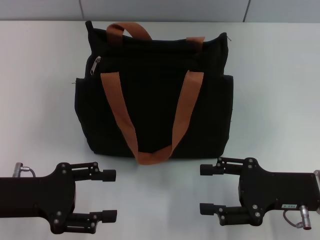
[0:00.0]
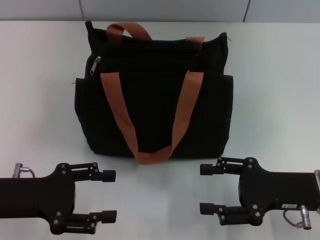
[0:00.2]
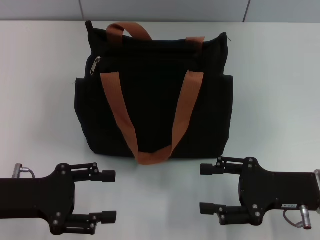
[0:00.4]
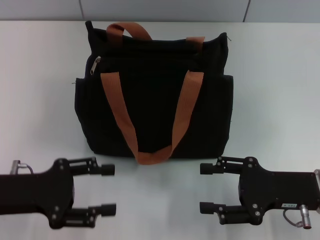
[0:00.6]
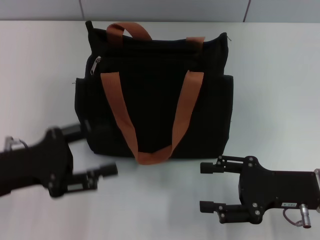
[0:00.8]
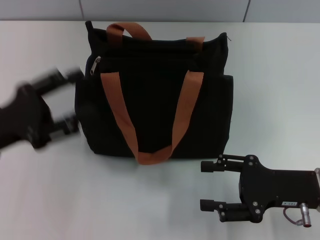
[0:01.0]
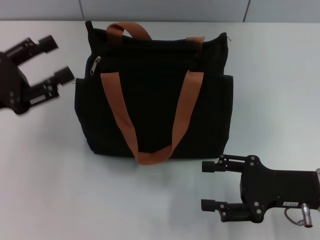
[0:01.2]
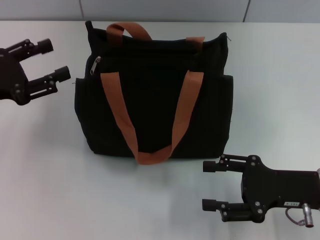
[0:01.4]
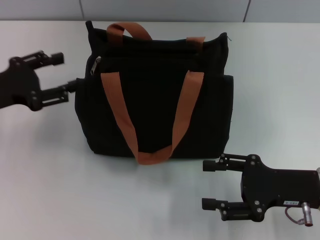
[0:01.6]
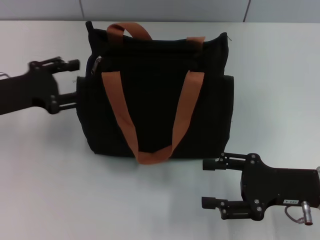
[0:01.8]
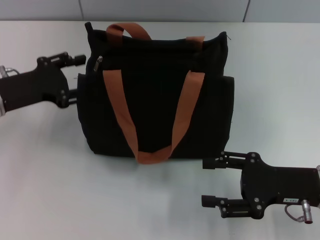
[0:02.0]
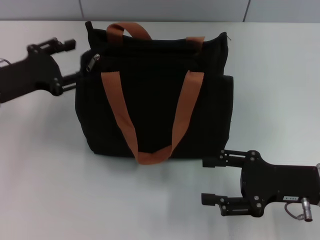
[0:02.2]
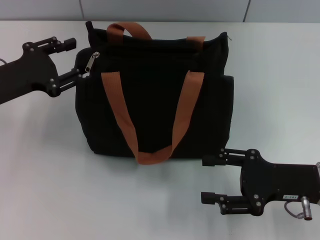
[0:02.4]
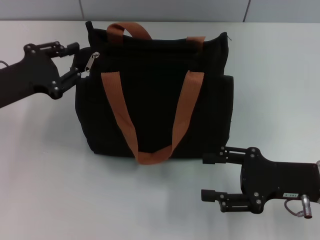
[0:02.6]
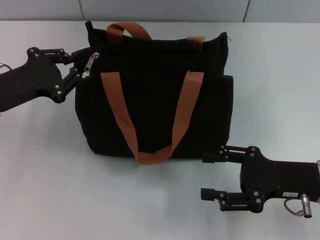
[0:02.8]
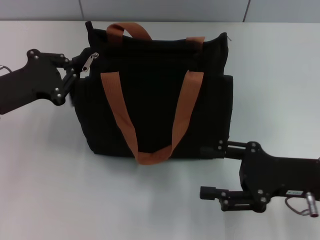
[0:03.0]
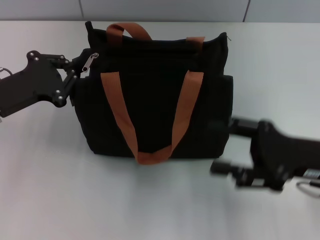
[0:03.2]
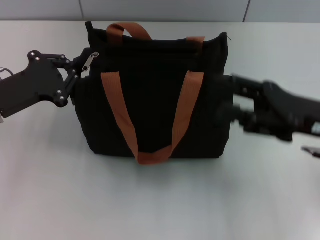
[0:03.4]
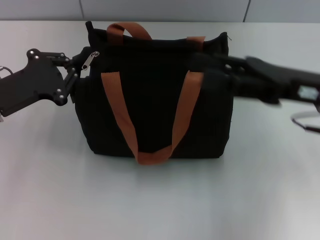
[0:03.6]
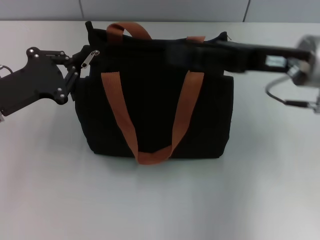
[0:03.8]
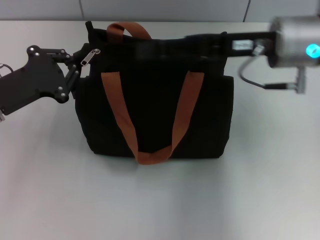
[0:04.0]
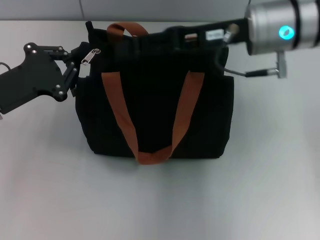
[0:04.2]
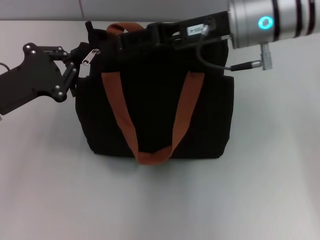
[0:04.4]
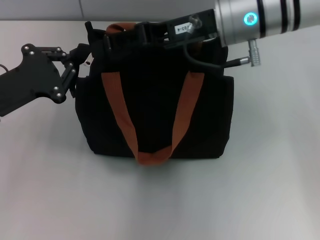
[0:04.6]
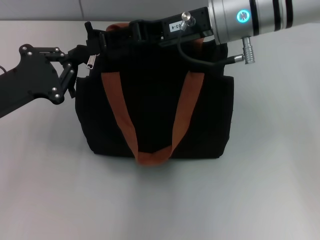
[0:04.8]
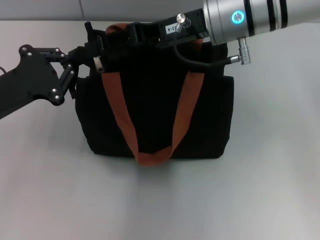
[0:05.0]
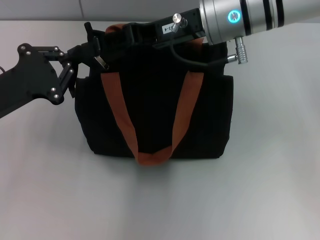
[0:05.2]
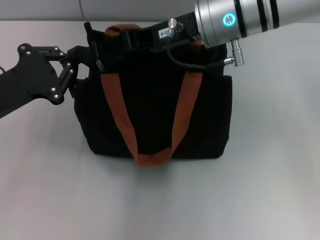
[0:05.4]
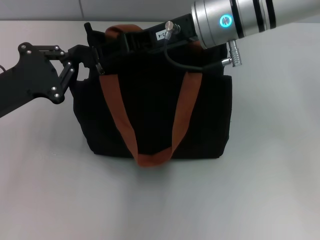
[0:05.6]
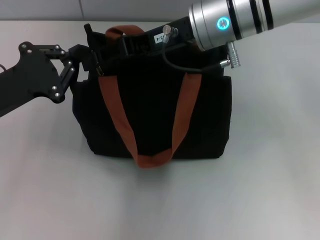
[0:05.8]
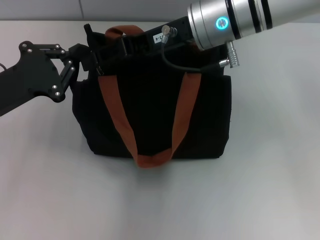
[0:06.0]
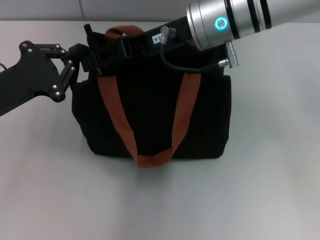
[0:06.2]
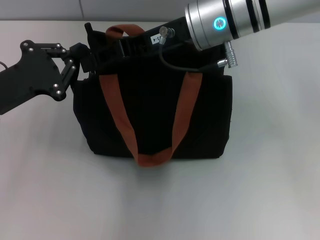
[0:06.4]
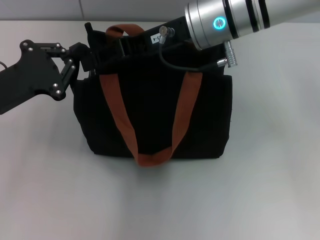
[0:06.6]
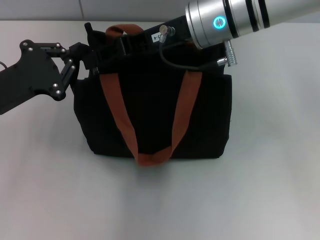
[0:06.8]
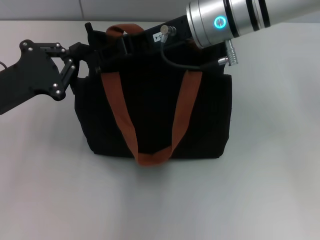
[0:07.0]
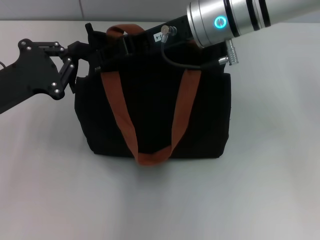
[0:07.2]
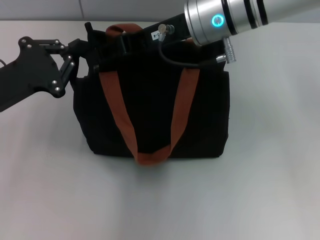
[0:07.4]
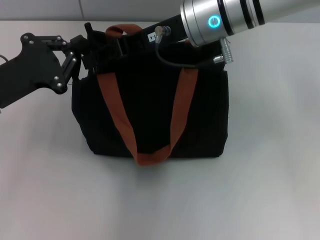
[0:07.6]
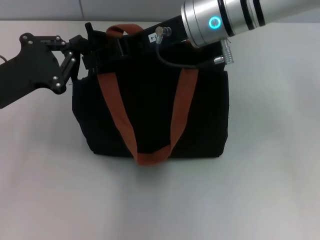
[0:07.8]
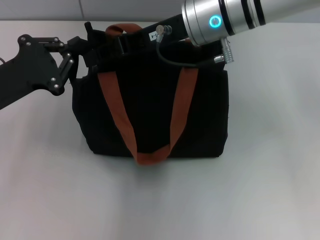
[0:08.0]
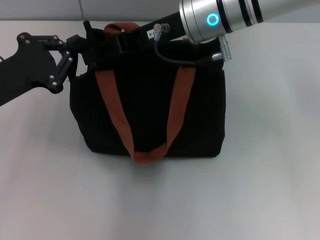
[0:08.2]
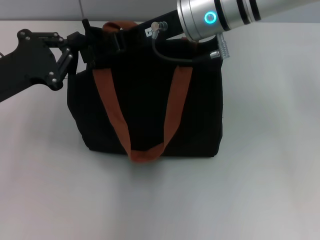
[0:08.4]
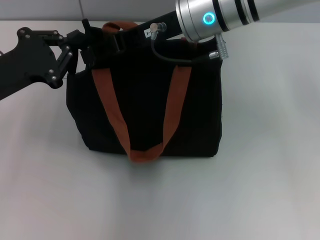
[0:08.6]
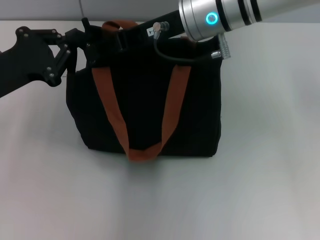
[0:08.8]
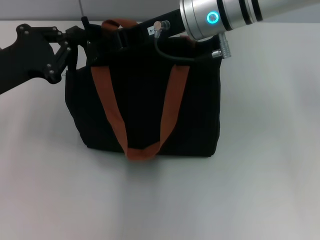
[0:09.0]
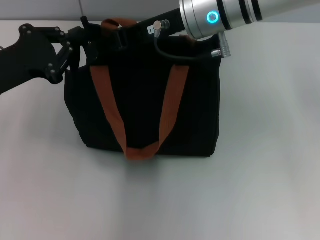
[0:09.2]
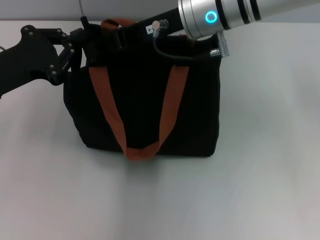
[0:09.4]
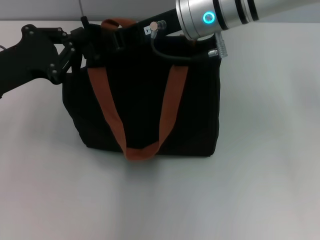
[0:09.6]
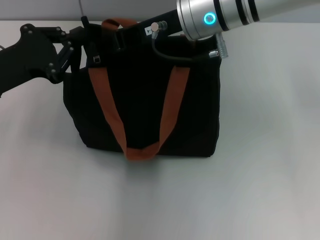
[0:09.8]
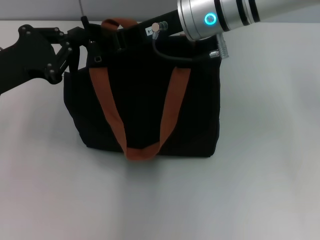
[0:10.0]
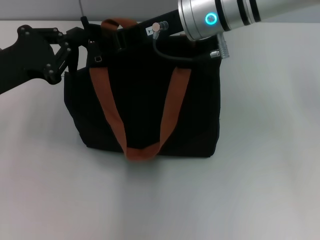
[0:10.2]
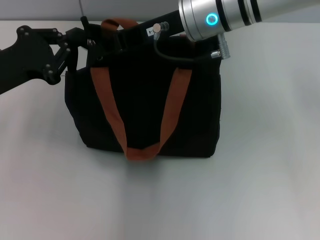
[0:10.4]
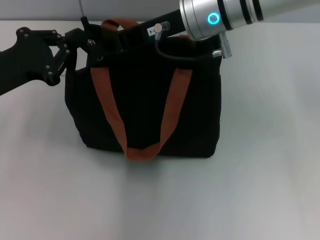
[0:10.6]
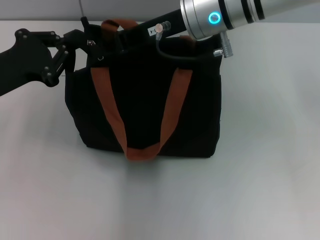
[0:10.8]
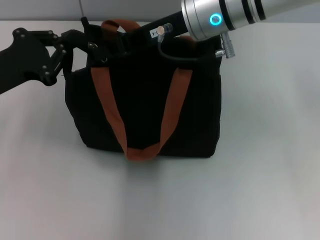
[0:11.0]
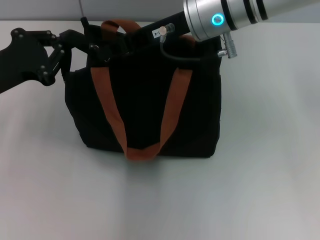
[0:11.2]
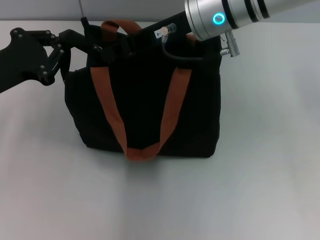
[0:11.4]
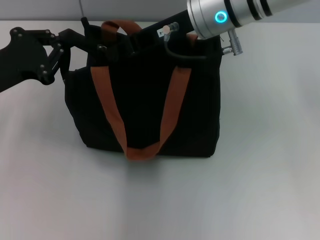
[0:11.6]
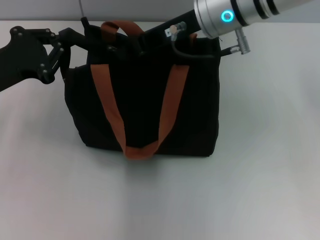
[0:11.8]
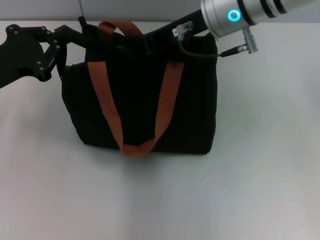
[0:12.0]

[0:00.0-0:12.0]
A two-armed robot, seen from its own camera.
0:00.0 to 0:01.6: The left gripper travels forward by roughly 10 cm.
0:01.6 to 0:03.0: The left gripper closes its fingers.
0:03.0 to 0:04.4: The right gripper moves forward, upward and to the left, some 25 cm.
0:04.4 to 0:09.0: The grippers stay close to where they were, moving slightly.
0:09.0 to 0:10.4: Both grippers stay put.
0:10.4 to 0:12.0: There are only small adjustments of the grippers.

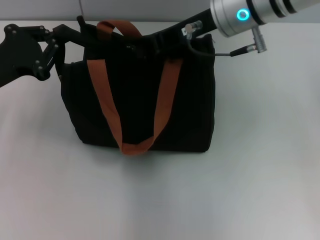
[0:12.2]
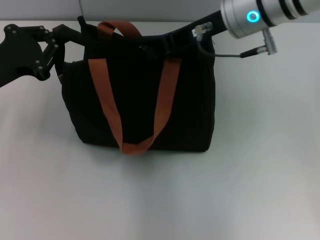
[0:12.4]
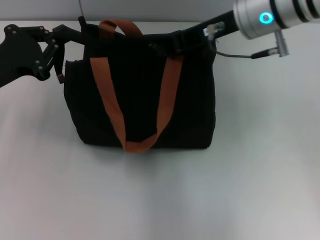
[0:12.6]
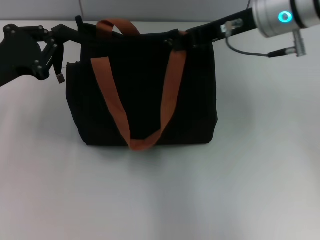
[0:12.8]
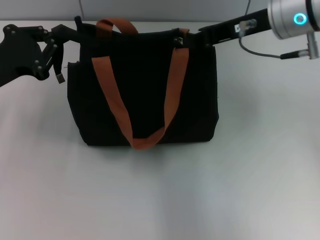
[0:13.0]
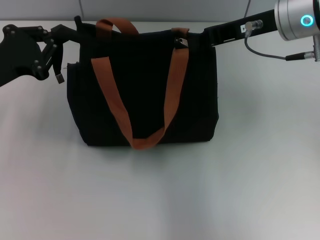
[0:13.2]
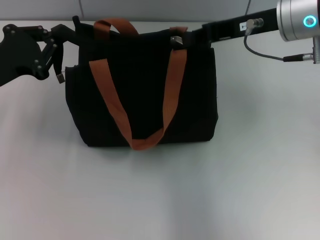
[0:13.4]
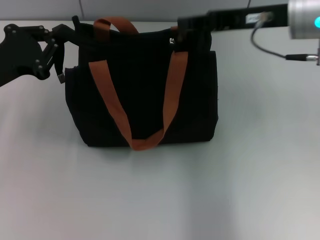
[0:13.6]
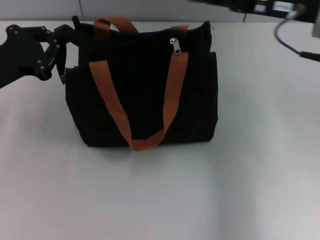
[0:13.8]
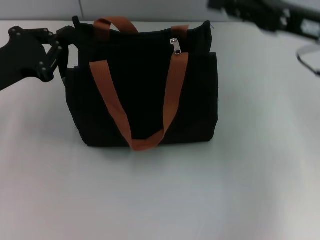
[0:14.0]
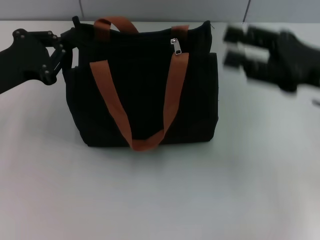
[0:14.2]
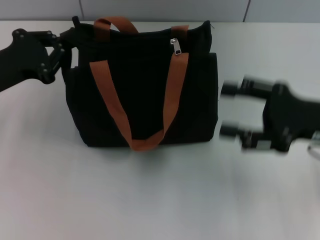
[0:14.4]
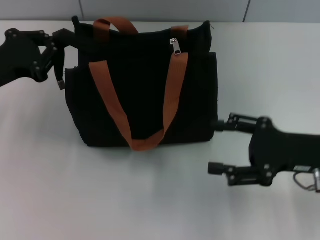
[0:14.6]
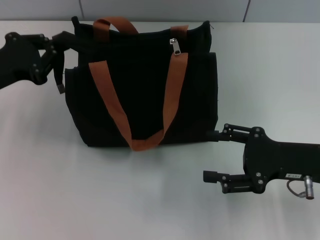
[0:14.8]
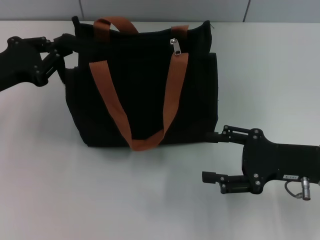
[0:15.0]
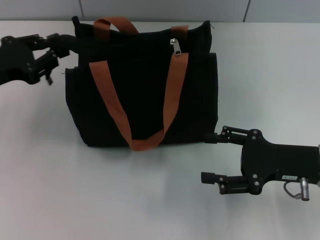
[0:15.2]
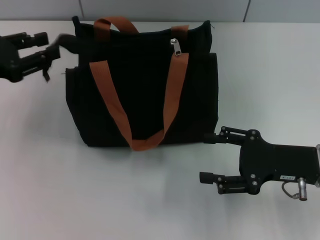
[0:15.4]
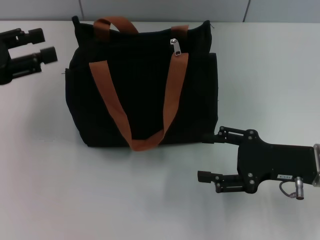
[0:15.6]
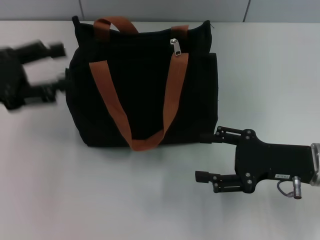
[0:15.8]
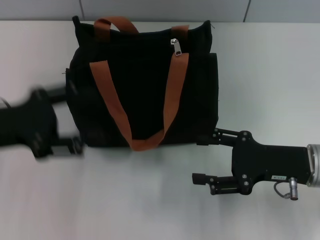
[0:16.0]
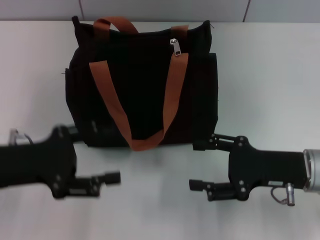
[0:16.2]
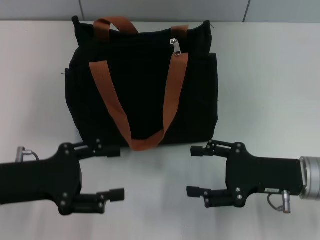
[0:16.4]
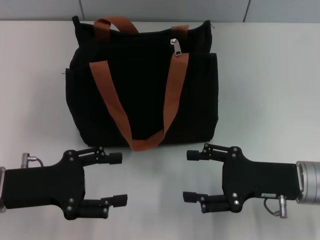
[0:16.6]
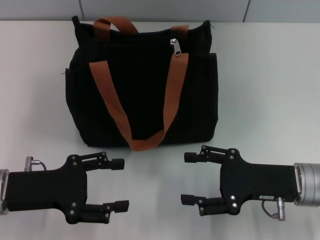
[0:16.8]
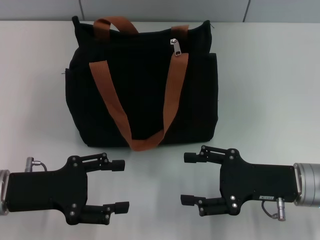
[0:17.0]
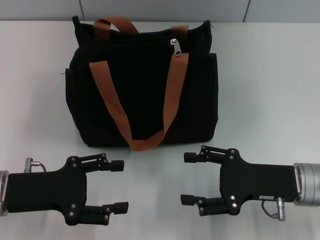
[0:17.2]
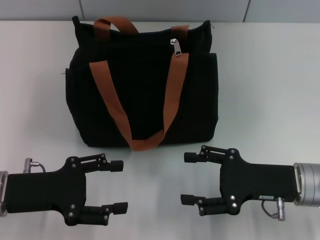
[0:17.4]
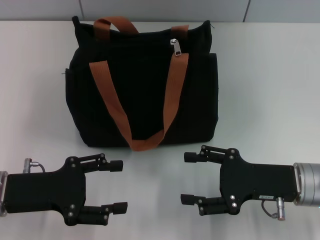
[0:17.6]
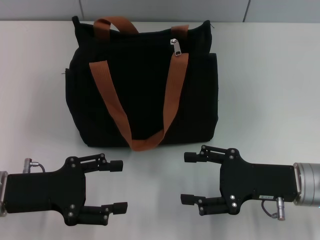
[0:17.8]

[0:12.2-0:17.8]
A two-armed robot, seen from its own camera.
Step, 0:13.6 to 0:15.4: Grab the zipper with your left hand.
0:12.2 to 0:13.6: The right gripper goes roughly 10 cm to the right.
0:13.6 to 0:15.0: The right gripper heads downward and backward, covering about 20 cm, and opens up.
0:15.0 to 0:16.4: The left gripper is displaced backward by some 10 cm, and opens up.
0:16.4 to 0:17.8: The grippers move only a little.

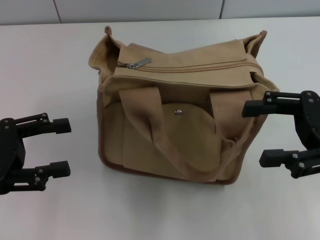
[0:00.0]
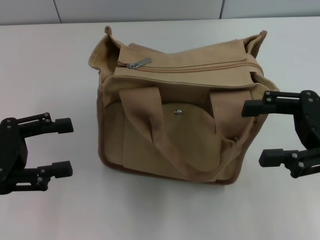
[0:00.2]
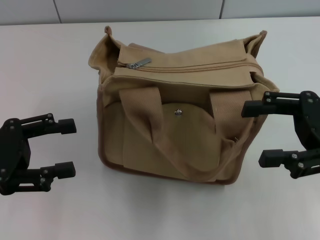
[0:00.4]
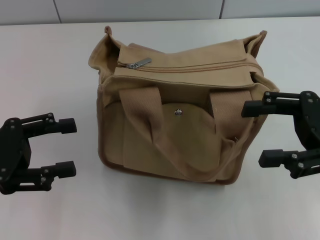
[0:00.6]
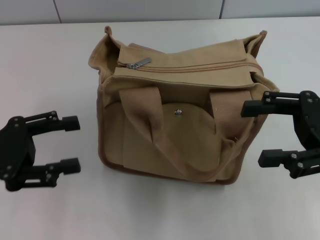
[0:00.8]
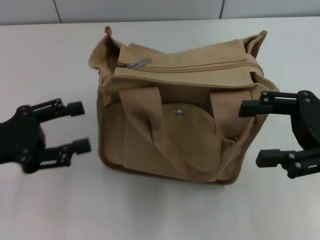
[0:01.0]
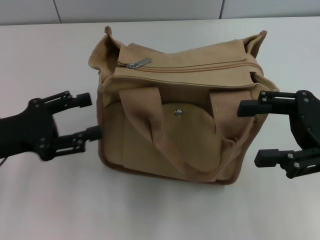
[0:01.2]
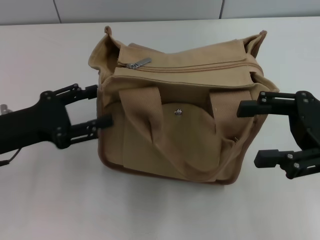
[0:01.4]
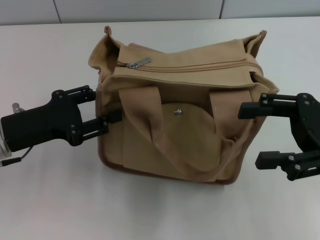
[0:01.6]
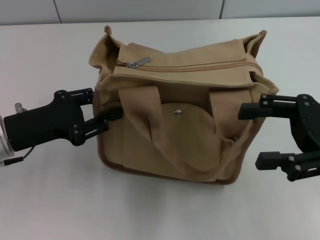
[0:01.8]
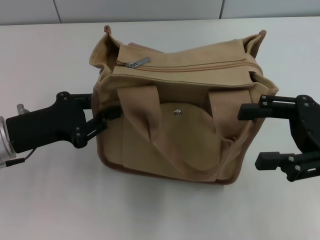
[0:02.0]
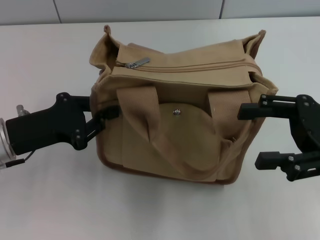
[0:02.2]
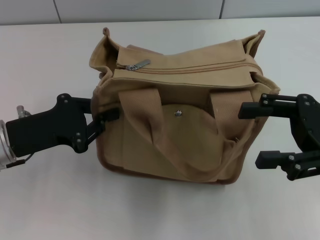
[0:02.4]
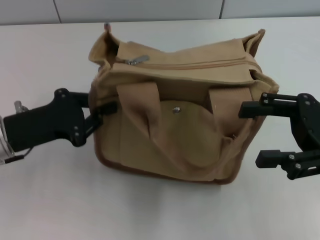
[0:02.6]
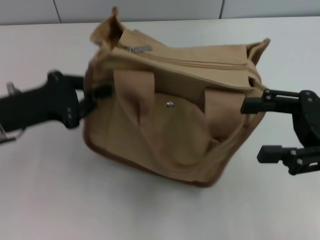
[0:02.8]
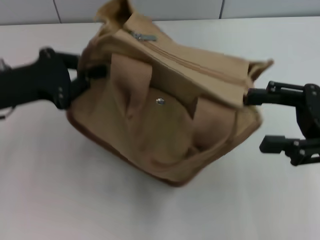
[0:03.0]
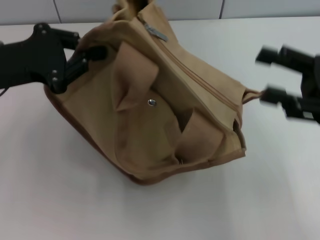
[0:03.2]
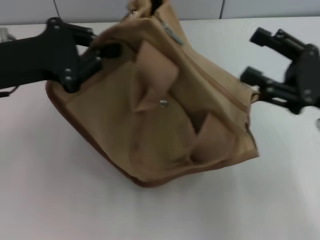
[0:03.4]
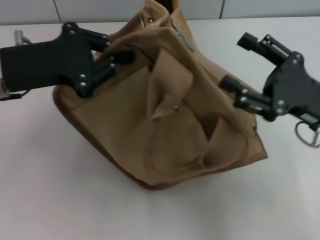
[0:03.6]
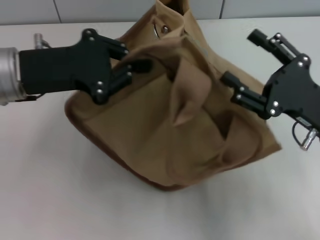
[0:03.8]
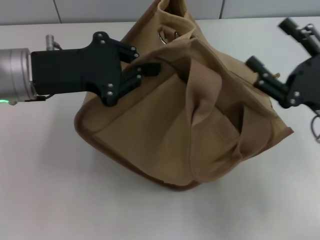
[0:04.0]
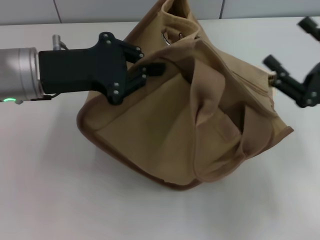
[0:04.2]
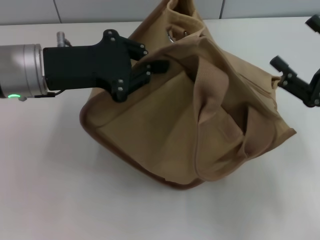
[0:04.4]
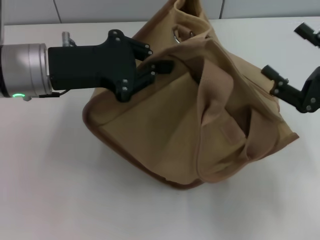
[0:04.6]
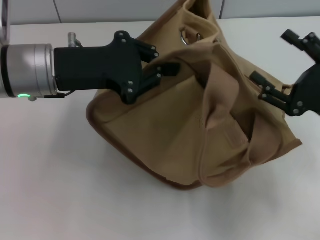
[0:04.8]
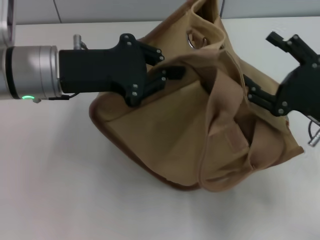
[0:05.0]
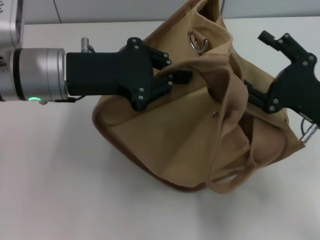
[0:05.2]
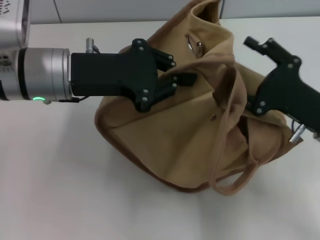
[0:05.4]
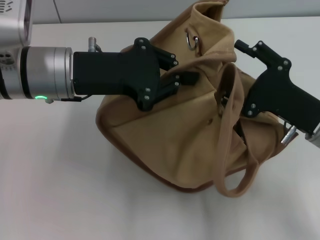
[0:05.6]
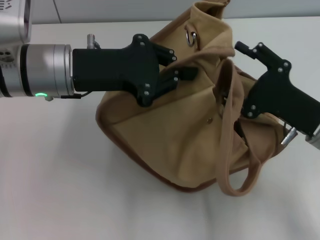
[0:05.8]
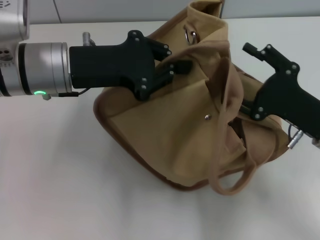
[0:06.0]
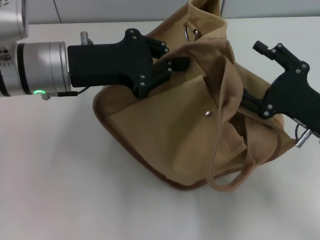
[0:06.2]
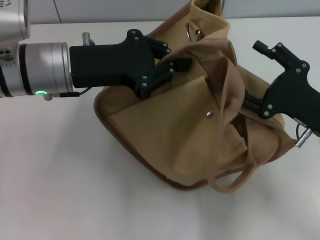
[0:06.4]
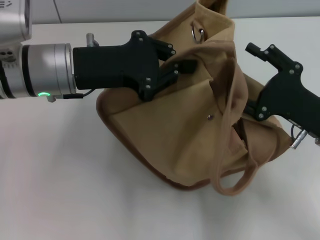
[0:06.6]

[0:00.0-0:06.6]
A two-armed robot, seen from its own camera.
0:00.0 to 0:01.6: The left gripper moves to the right, about 5 cm.
0:01.6 to 0:03.2: The left gripper heads upward, covering approximately 10 cm, and closes.
0:03.2 to 0:05.0: The right gripper heads downward, covering some 5 cm; the left gripper travels to the right by roughly 10 cm.
